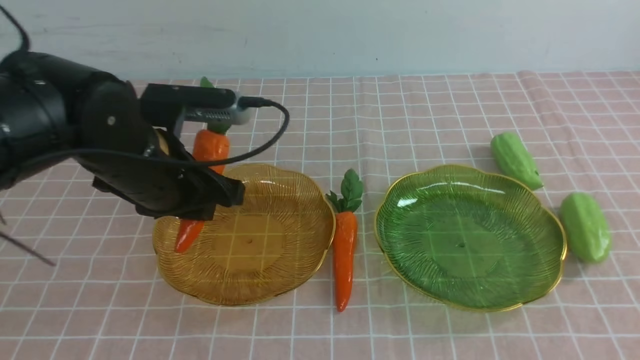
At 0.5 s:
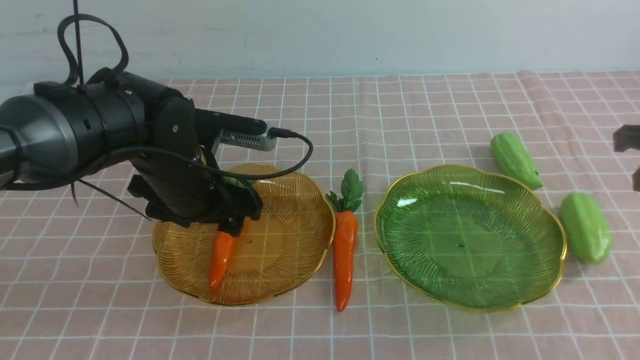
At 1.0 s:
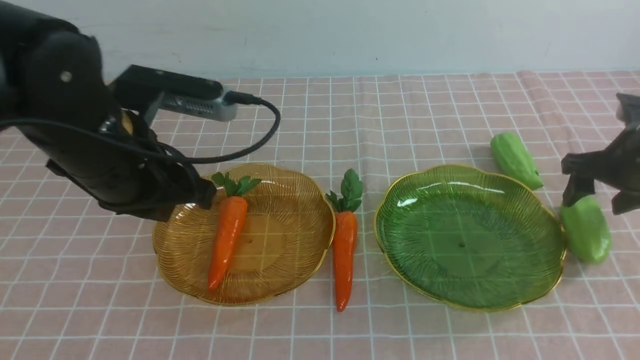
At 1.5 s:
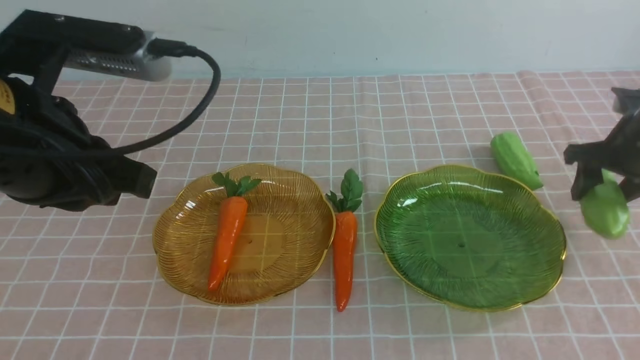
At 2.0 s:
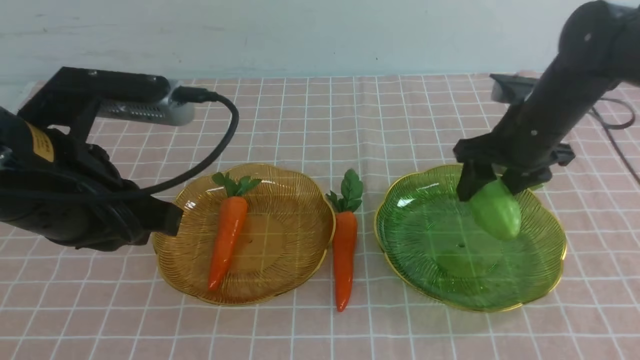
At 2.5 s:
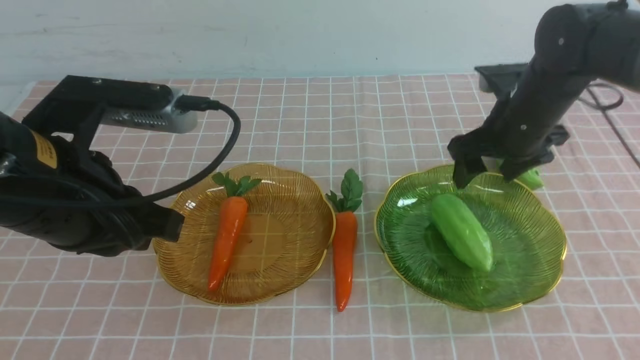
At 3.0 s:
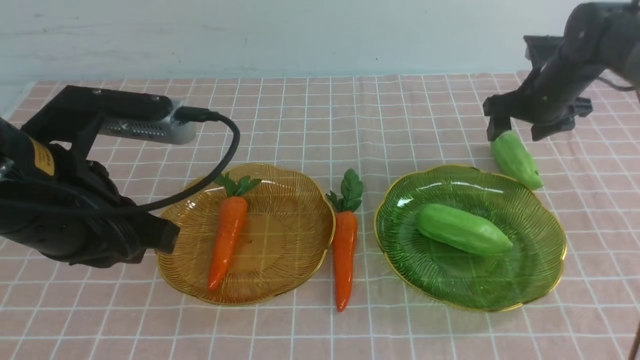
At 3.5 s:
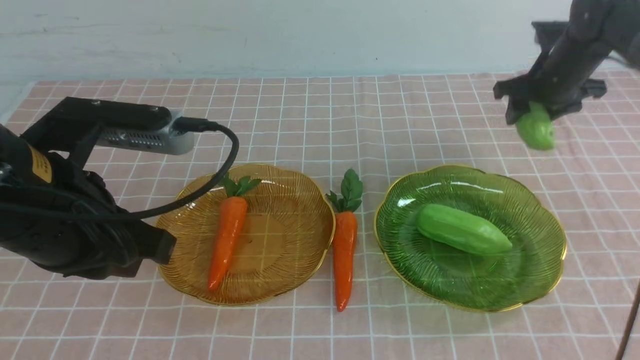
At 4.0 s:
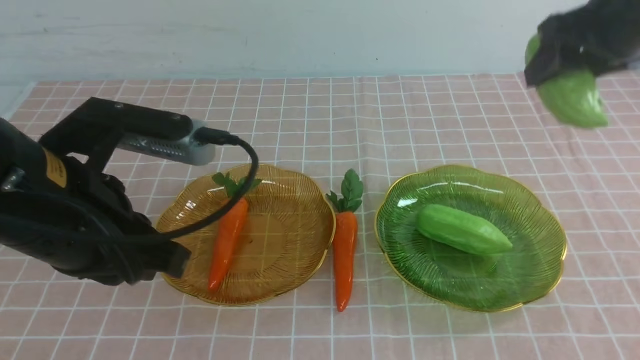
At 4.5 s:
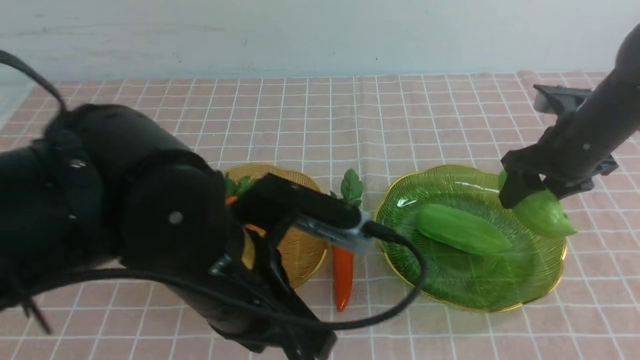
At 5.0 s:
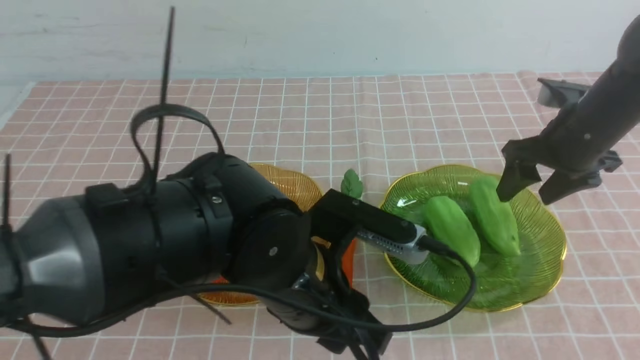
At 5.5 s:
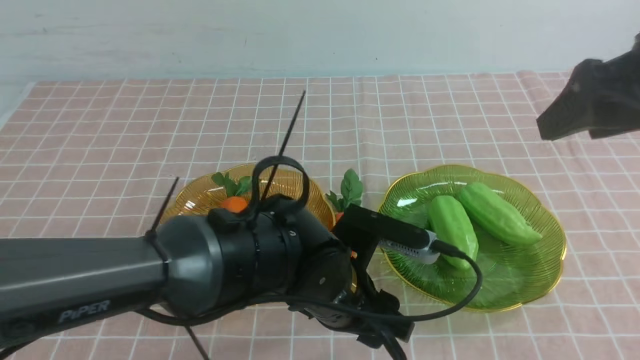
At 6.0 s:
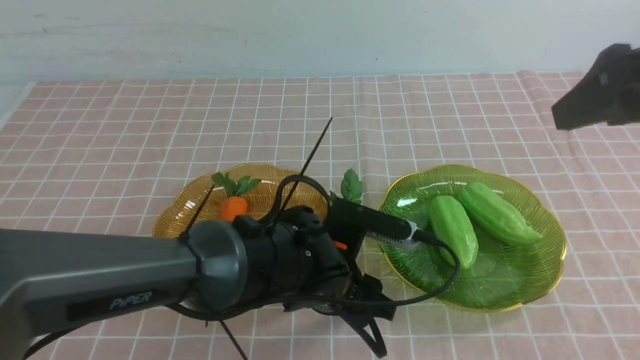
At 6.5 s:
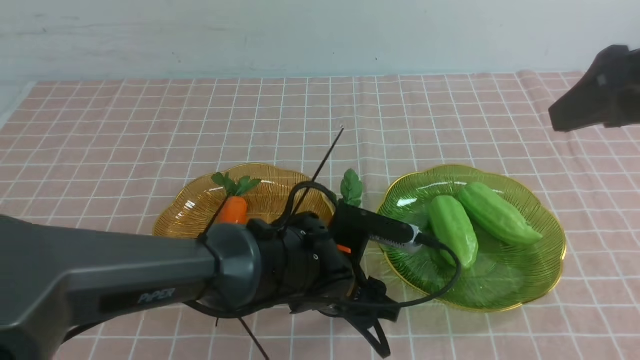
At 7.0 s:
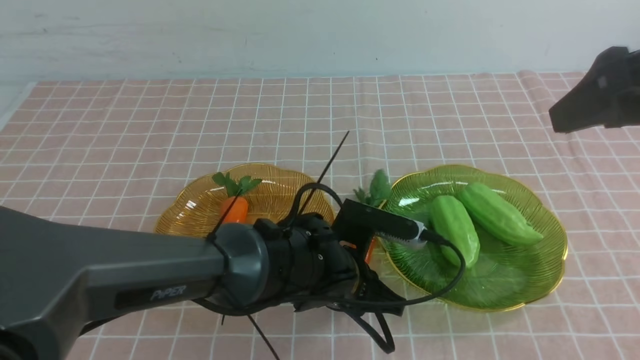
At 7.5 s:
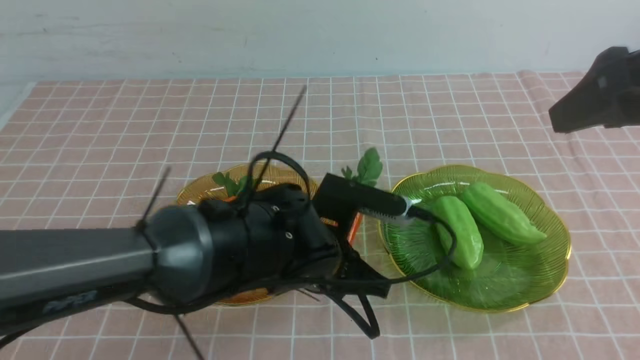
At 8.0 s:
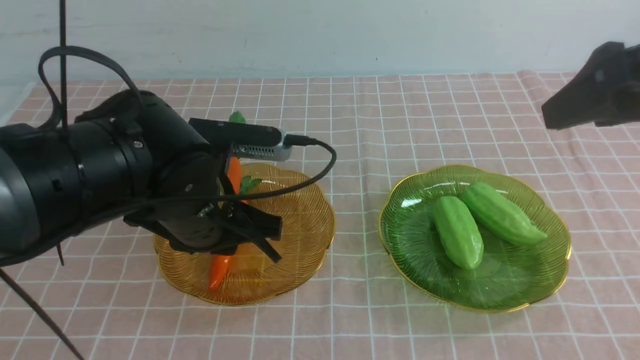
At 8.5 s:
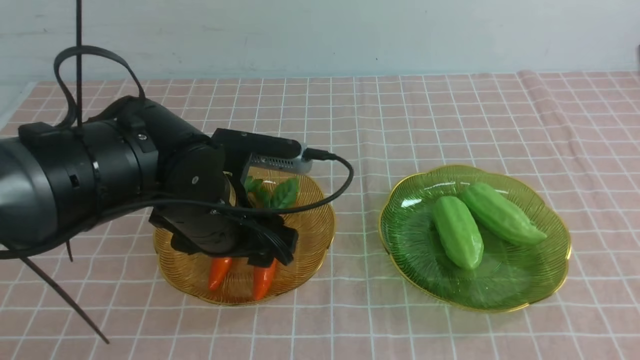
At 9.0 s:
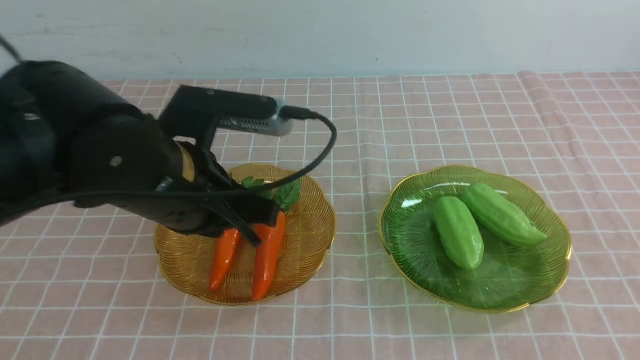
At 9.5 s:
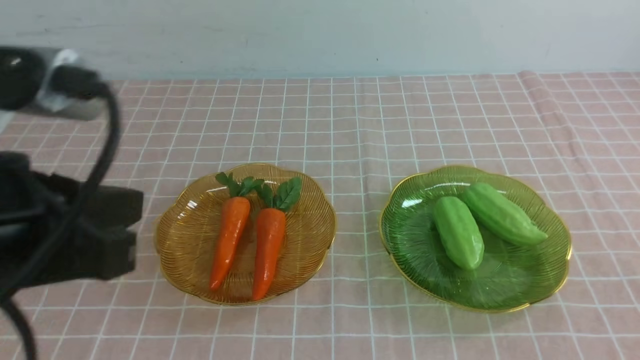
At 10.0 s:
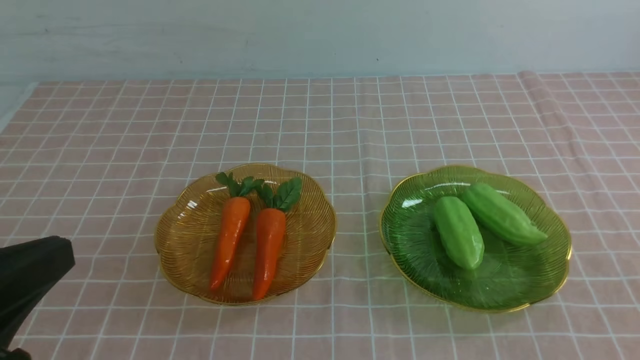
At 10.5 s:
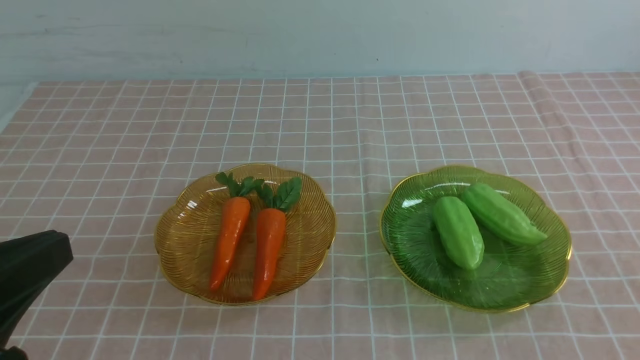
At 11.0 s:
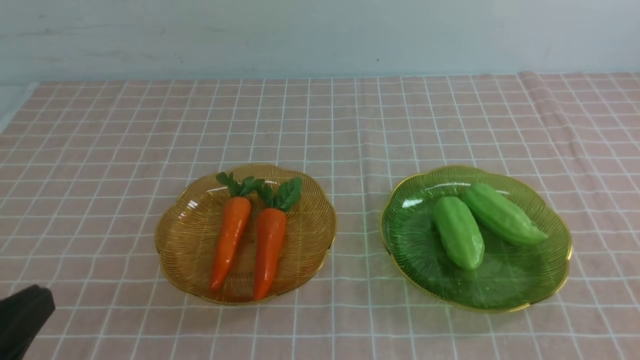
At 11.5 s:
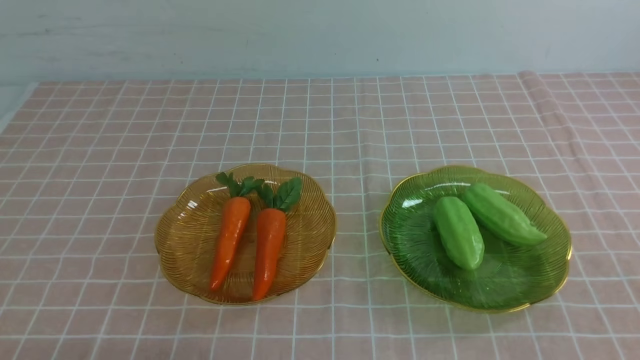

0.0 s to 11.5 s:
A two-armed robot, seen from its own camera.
Step, 0.5 to 2.0 s: use the right arm to grab a chayote and put it into the right plate.
Step, 2.5 to 4.5 s: use the right arm to grab a chayote and put it into the right plate.
Step, 5.0 to 8.5 s: use the left arm to grab a carrot and put it into the left plate.
0.0 to 2.0 s: The right gripper heads forward and downward, covering about 25 cm, and opens its fingers. The left gripper moves backward and upward, roughly 10 cm, and closes its fingers.
2.0 to 4.0 s: The right gripper is displaced upward by roughly 10 cm.
4.0 to 6.0 s: The left gripper travels downward and to the right by about 25 cm, and opens its fingers. Meanwhile the right gripper heads backward and upward, covering roughly 15 cm.
6.0 to 7.5 s: The left gripper closes up.
7.5 to 9.5 s: The left gripper is displaced to the left, backward and upward by roughly 30 cm, and opens and closes again; the right gripper heads backward, covering some 25 cm, and closes up.
9.5 to 11.5 s: The left gripper goes about 15 cm downward.

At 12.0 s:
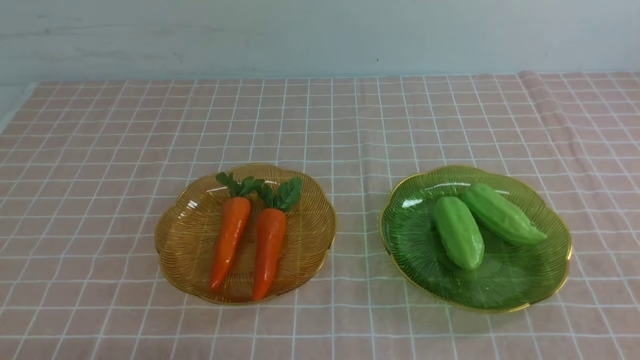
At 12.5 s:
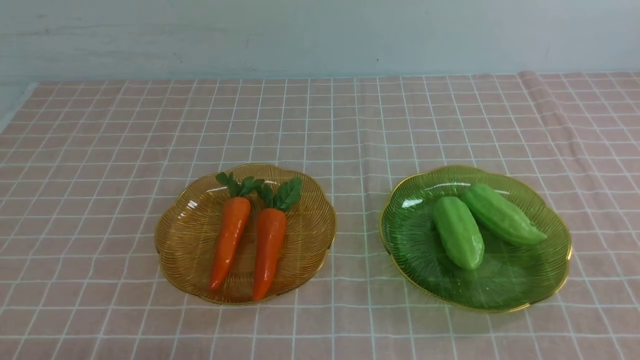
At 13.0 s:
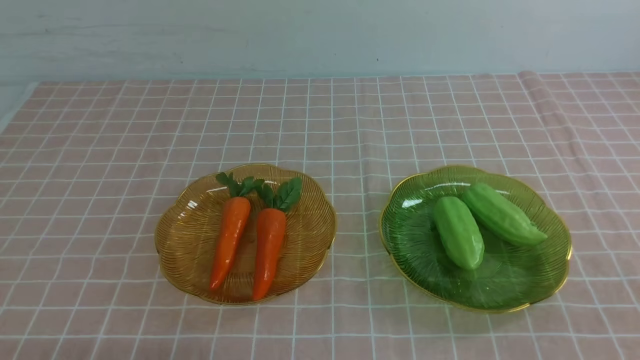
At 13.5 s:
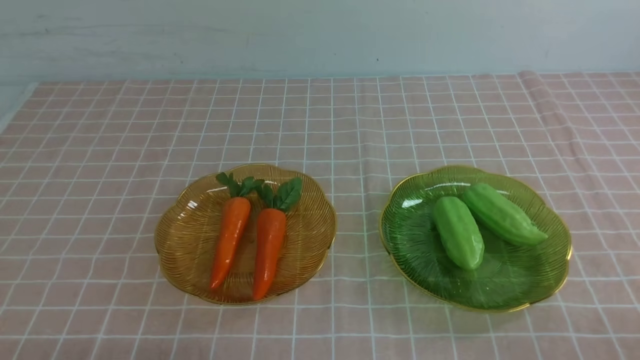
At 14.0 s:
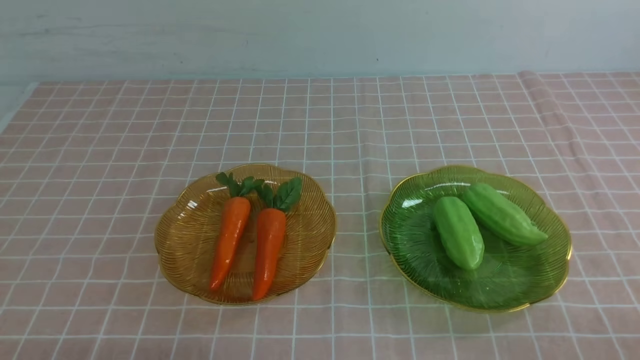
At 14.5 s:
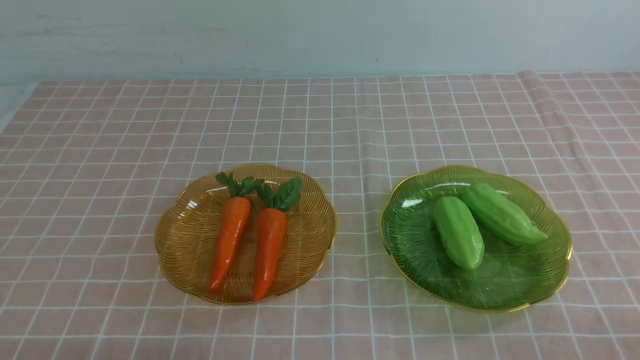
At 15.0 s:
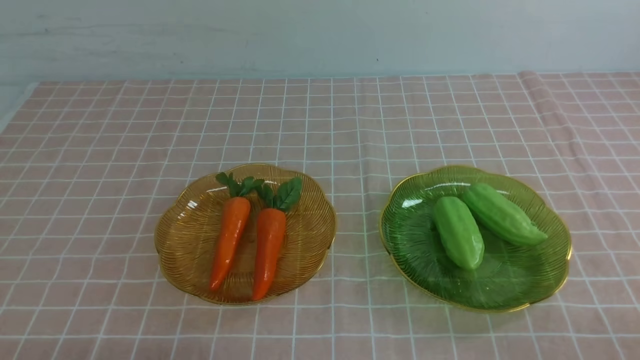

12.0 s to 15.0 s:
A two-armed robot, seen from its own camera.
13.5 to 15.0 s: Both grippers stay put.
